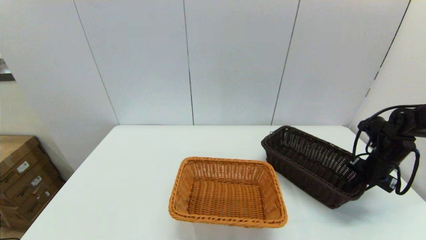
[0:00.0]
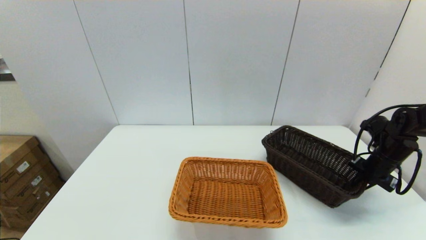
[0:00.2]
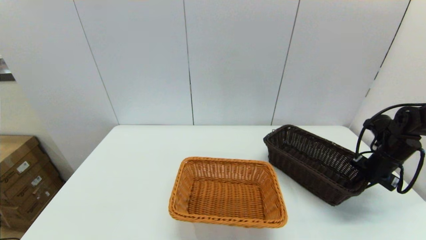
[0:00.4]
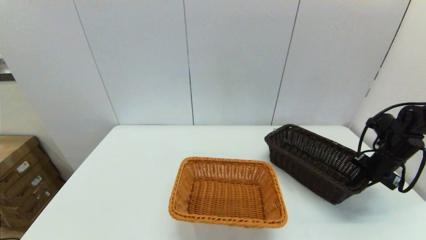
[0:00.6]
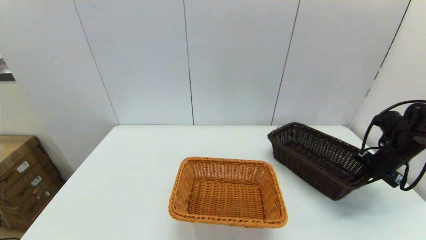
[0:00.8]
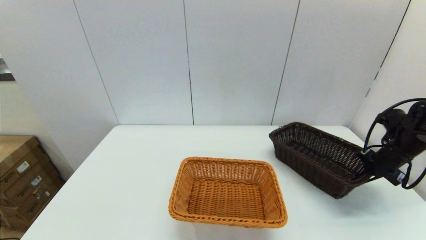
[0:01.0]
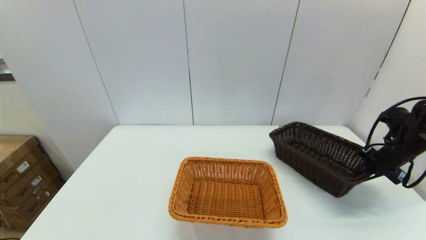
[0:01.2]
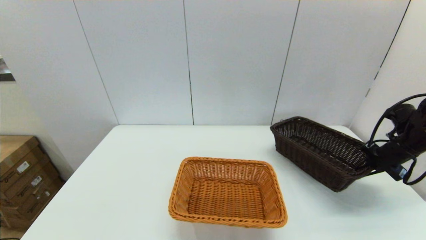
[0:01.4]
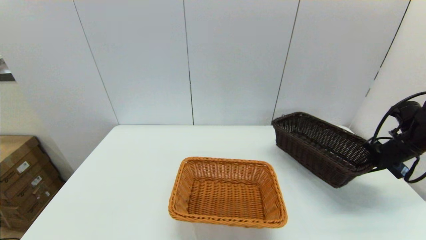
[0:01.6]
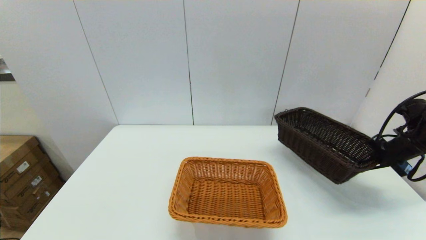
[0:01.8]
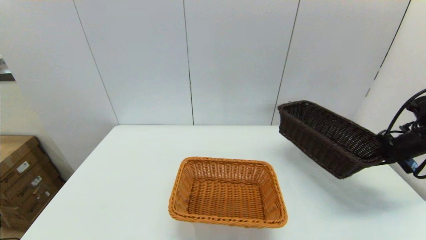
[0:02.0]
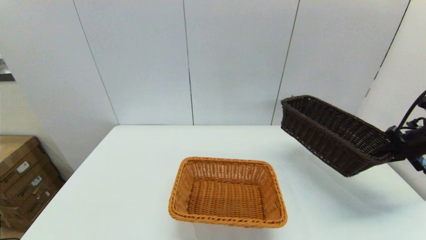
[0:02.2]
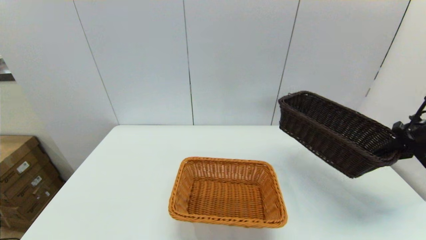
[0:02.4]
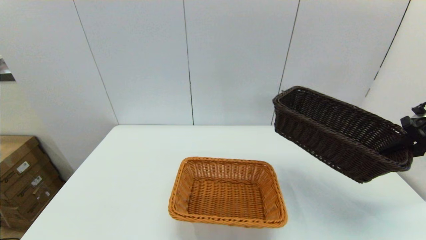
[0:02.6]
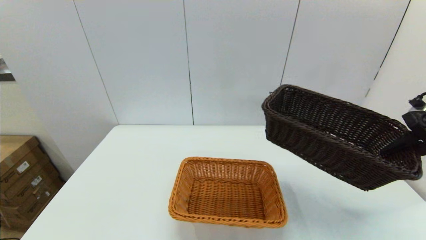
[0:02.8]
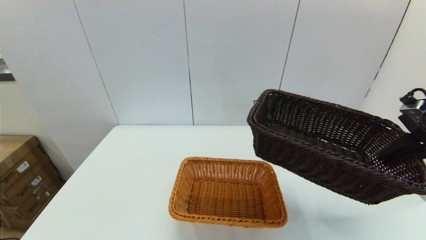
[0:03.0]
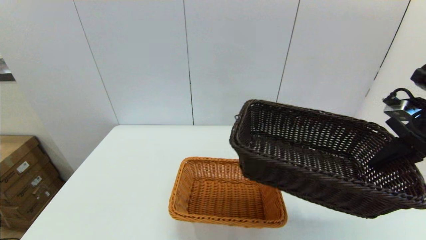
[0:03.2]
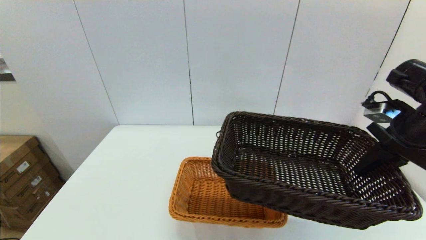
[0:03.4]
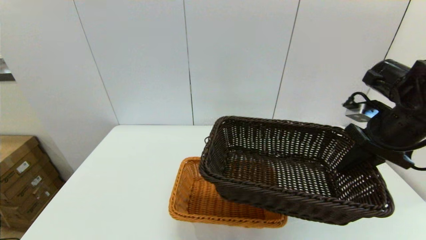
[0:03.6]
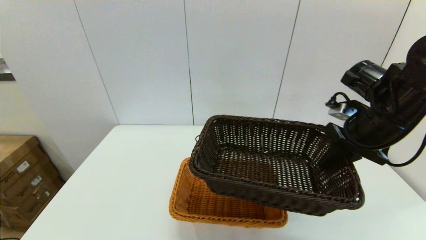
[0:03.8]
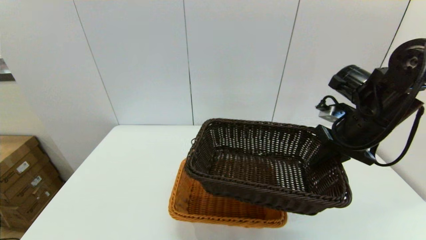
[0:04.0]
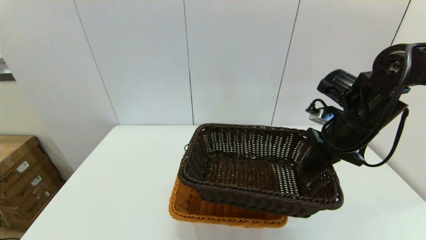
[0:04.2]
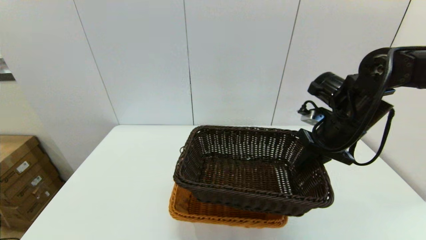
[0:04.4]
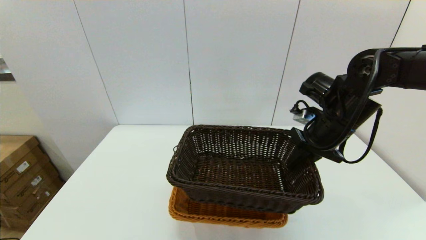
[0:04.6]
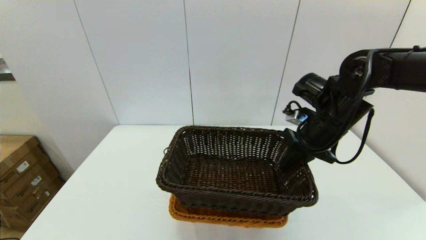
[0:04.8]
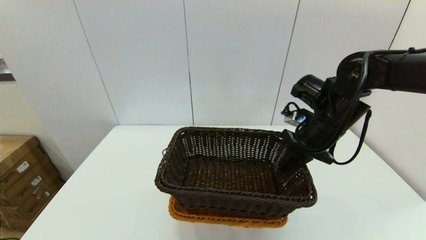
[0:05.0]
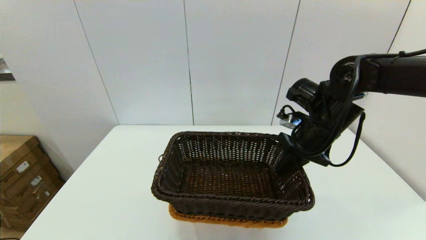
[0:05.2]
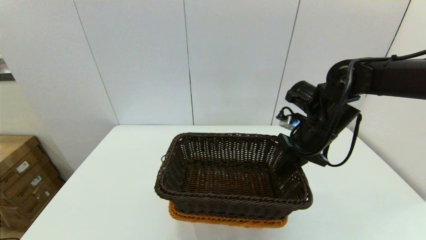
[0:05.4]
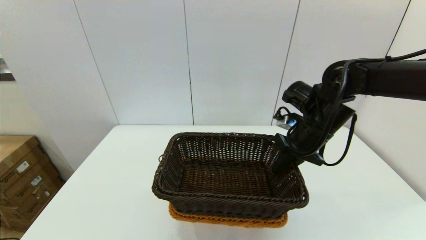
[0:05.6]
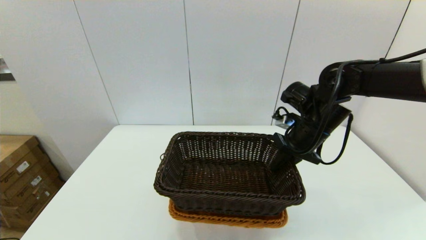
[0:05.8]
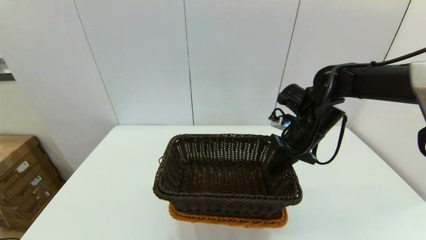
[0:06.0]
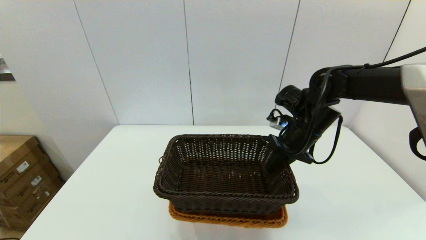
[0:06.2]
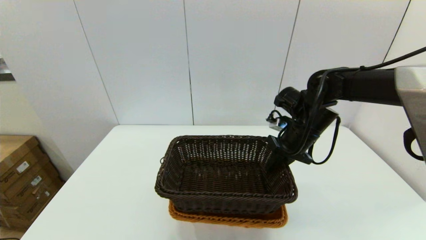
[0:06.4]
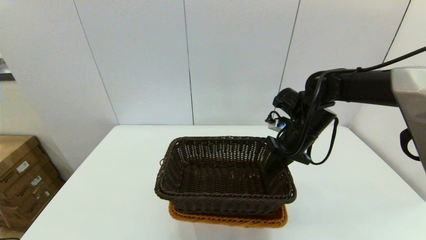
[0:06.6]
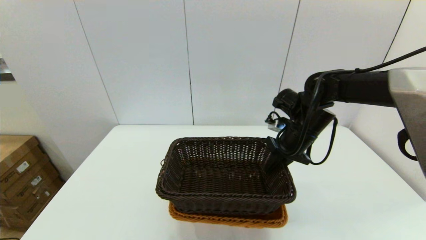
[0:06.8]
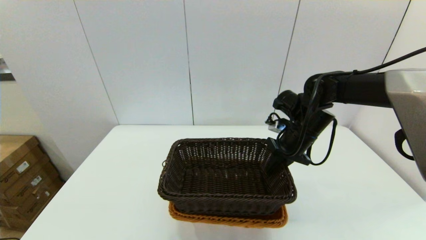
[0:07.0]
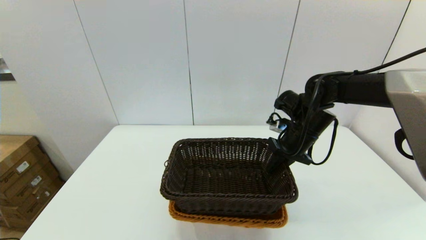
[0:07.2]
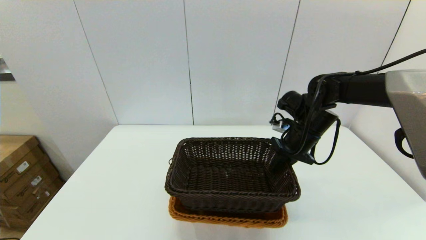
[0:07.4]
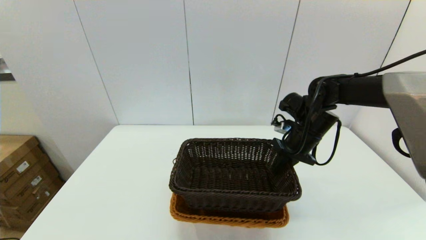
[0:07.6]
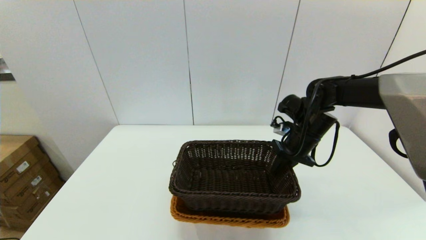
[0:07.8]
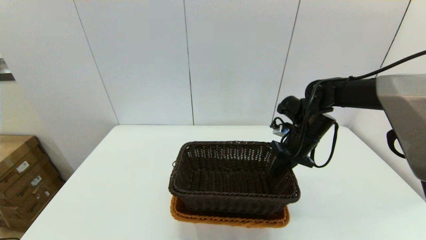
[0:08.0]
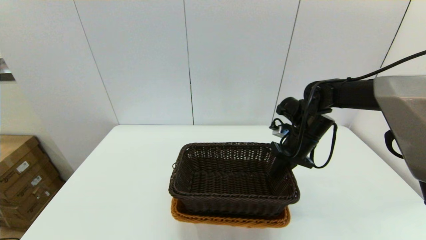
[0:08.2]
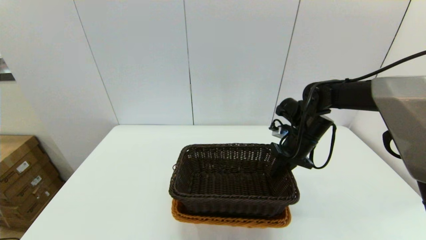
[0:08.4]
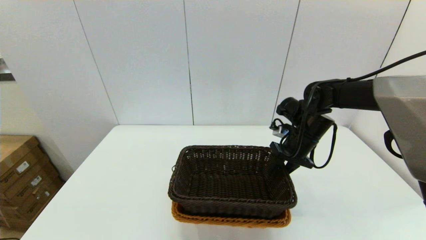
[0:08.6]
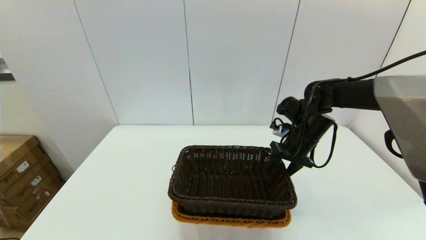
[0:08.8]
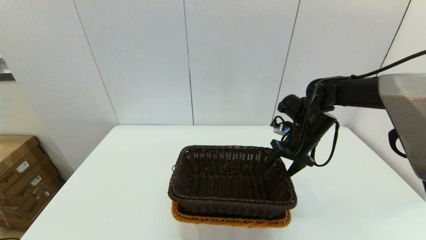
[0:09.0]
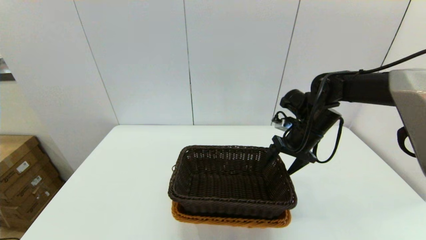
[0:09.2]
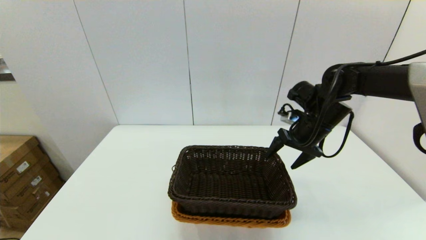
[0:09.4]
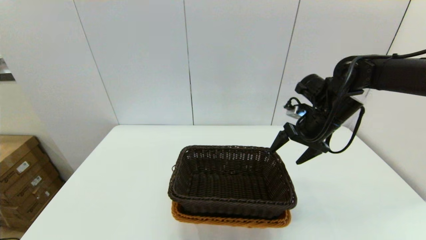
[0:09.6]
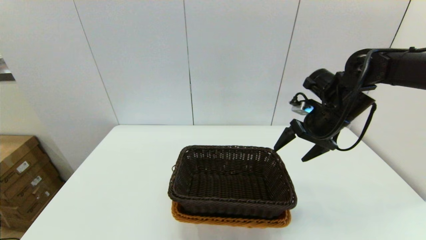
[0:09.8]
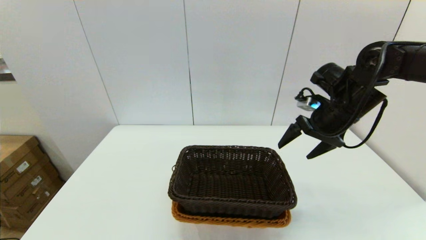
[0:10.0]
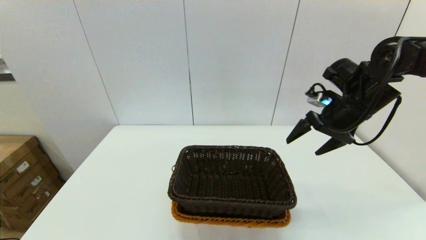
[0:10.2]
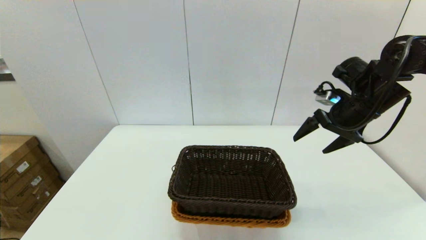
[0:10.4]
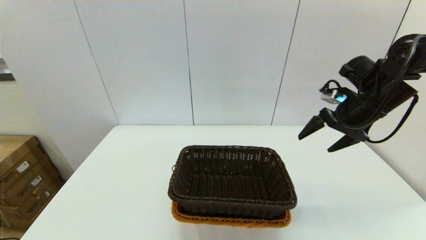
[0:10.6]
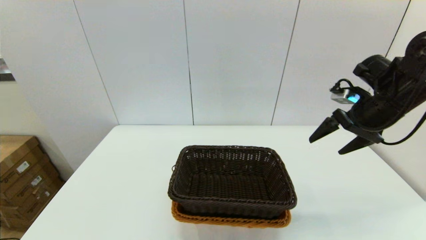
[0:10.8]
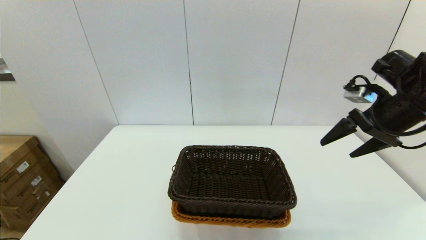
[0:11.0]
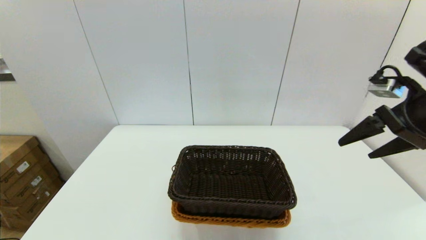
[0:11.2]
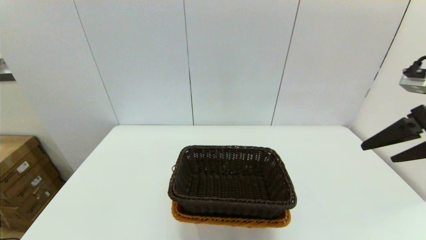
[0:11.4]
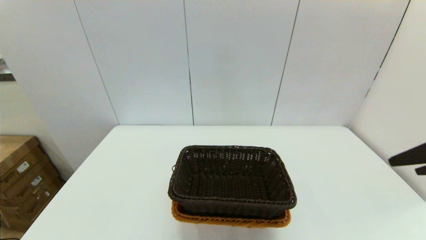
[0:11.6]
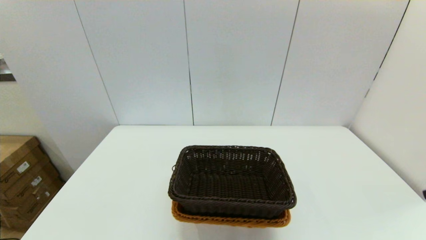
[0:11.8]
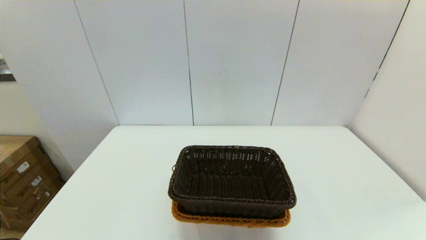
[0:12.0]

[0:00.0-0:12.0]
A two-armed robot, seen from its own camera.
Task of the whole recording: stack a basket on top of another basket.
Step, 0:00.2 to 0:09.4: Place the dark basket into the light color basket with the right gripper.
0:00.0 to 0:01.6: The right gripper moves roughly 5 cm.
0:01.6 to 0:03.0: The right gripper goes about 15 cm upward, backward and to the left.
0:03.0 to 0:04.4: The right gripper is displaced to the left and forward by about 15 cm.
0:04.4 to 0:06.0: The right gripper ends up some 5 cm from where it was.
0:06.0 to 0:07.6: The grippers make only small movements.
0:07.6 to 0:09.0: The right gripper opens.
0:09.0 to 0:10.4: The right gripper moves upward and to the right, approximately 10 cm.
0:10.4 to 0:12.0: The right gripper moves backward, approximately 30 cm.

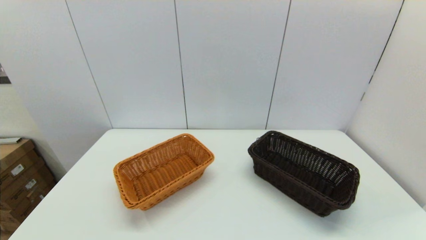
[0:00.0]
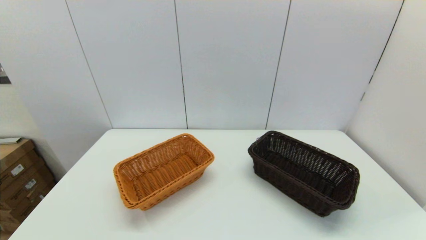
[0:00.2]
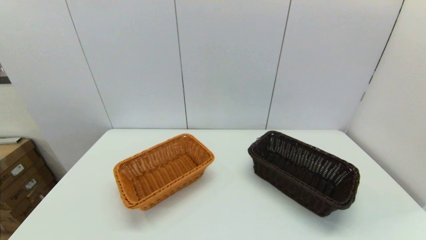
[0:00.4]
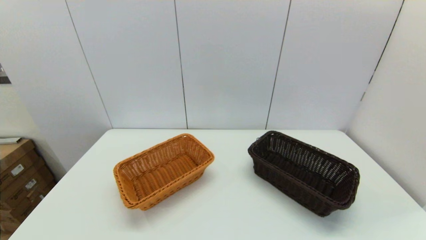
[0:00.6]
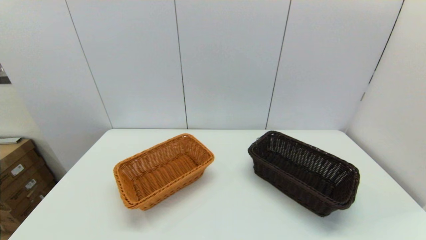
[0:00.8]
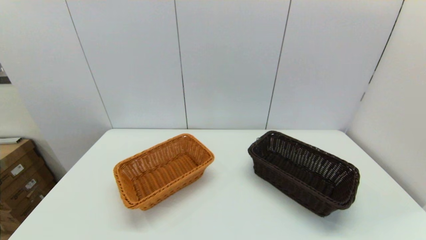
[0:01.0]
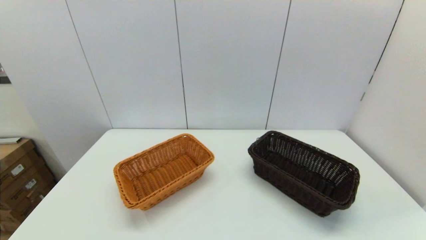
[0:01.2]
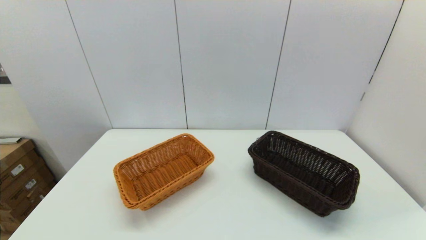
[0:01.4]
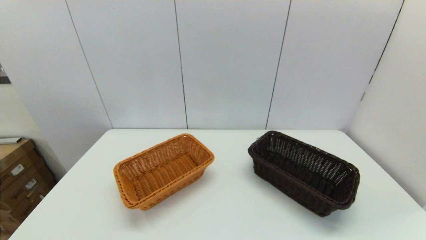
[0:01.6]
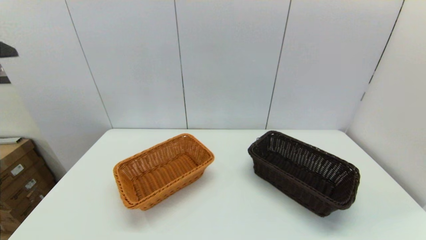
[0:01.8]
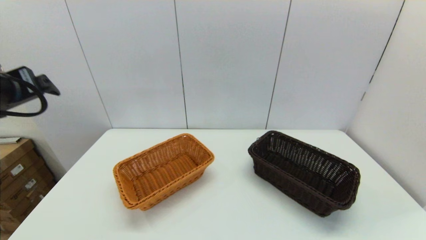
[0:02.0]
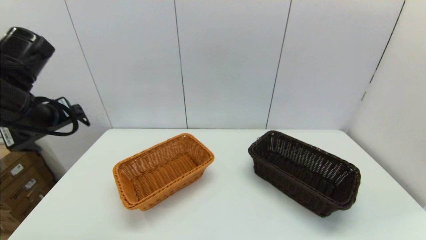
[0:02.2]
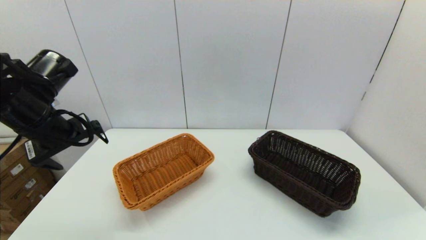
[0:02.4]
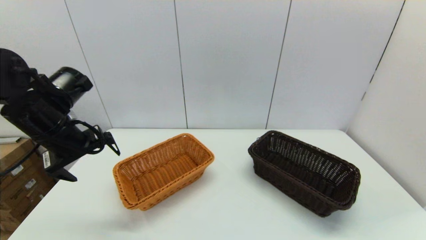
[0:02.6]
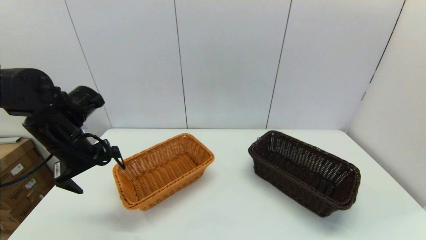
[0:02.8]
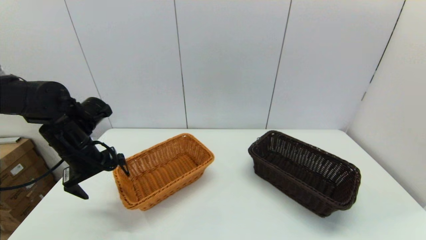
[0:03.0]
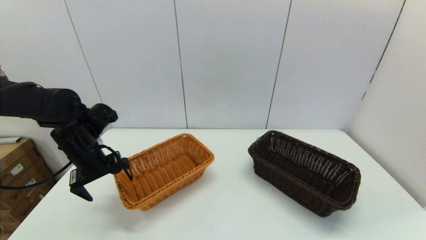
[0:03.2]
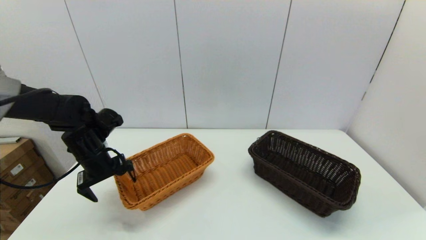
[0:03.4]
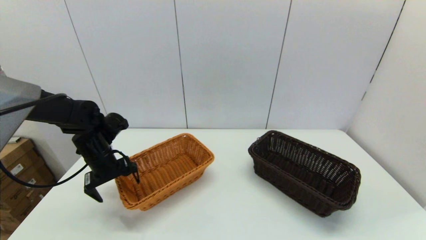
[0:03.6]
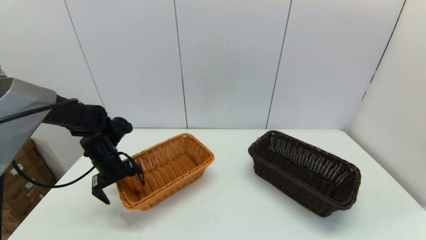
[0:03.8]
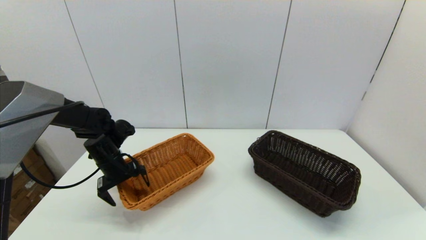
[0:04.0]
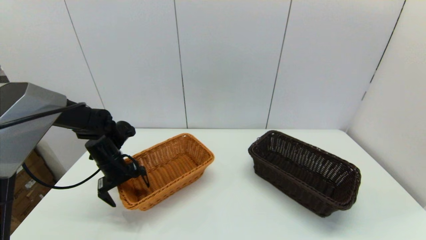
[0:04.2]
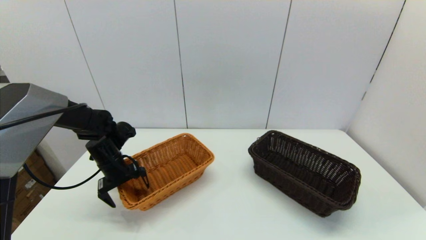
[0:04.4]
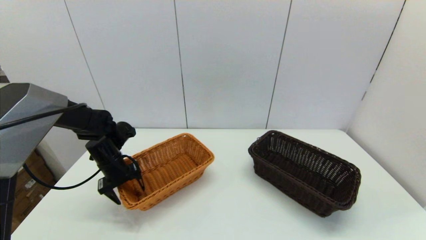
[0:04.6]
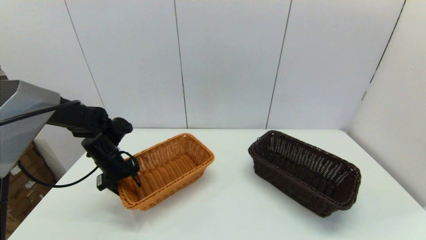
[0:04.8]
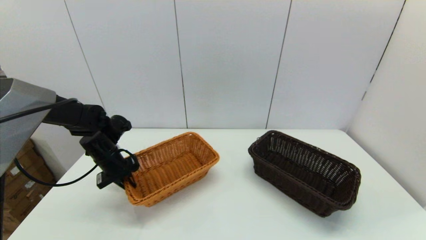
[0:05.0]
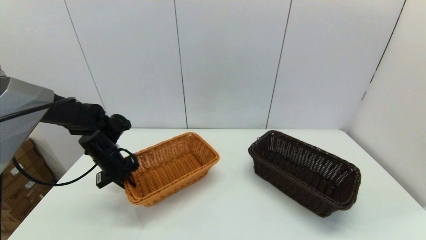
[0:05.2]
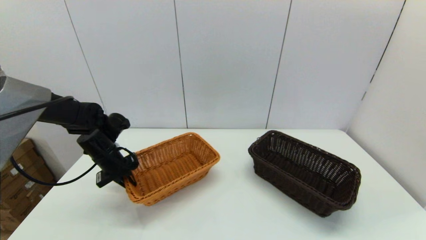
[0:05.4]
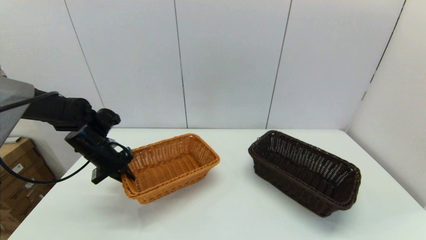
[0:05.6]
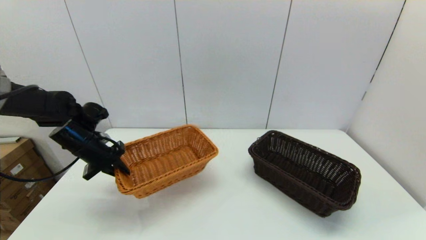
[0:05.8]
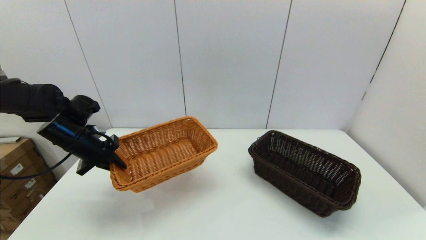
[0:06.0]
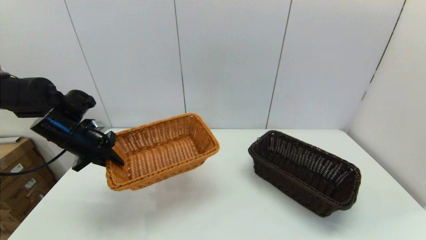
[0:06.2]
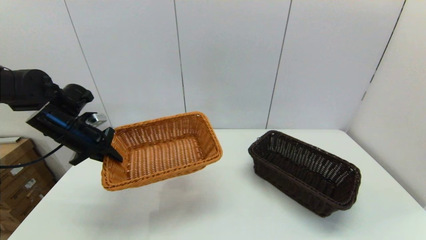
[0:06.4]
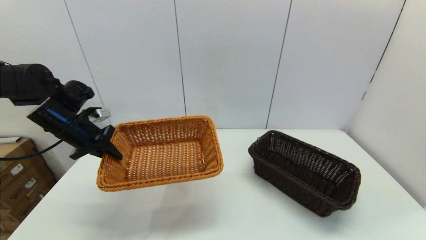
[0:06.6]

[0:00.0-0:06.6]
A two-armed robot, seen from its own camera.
Task of the whole recording: stack a basket on top of another basket.
Step, 0:01.8 to 0:05.0: Grasp the light basket with the left gripper.
0:01.6 to 0:03.2: The left gripper goes some 30 cm downward and forward.
0:03.2 to 0:05.0: The left gripper moves downward, approximately 5 cm, and closes up.
0:05.0 to 0:06.6: The left gripper heads upward, covering roughly 10 cm.
